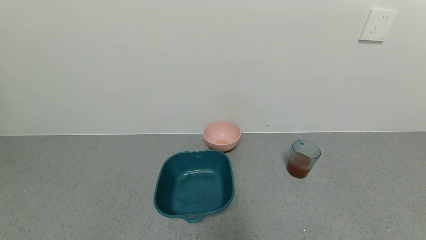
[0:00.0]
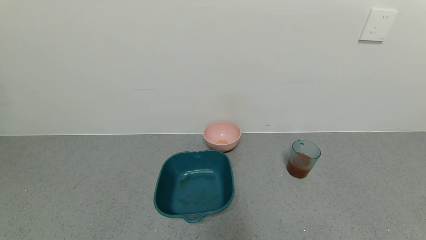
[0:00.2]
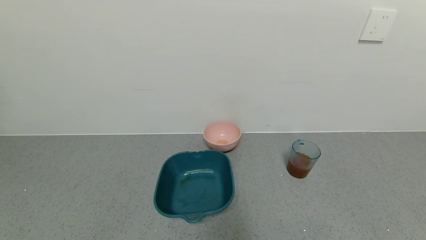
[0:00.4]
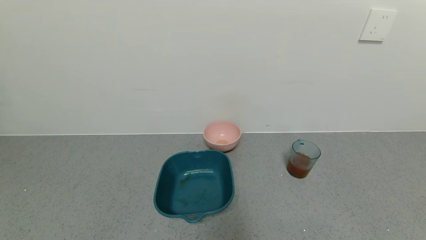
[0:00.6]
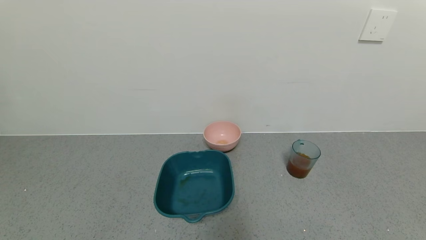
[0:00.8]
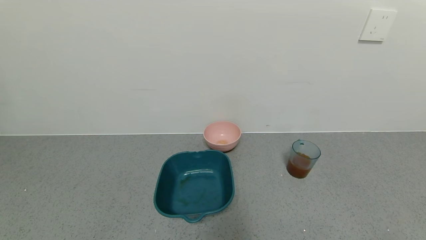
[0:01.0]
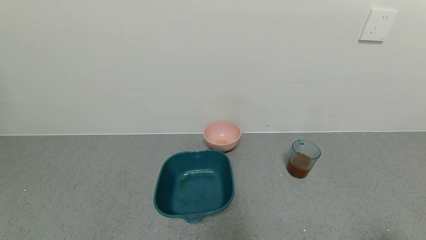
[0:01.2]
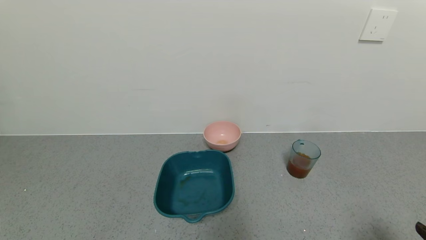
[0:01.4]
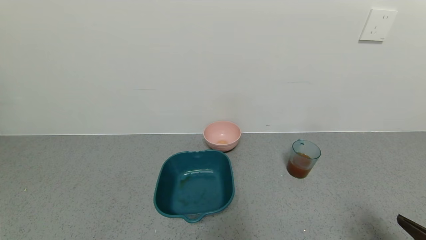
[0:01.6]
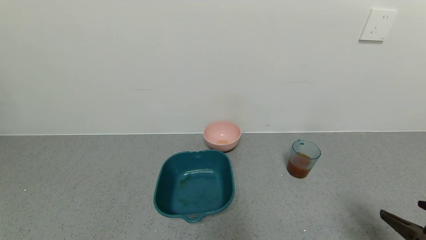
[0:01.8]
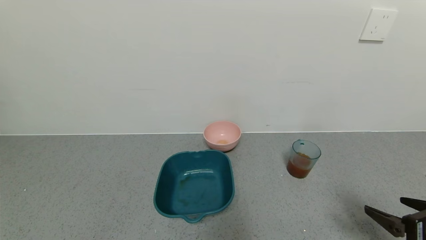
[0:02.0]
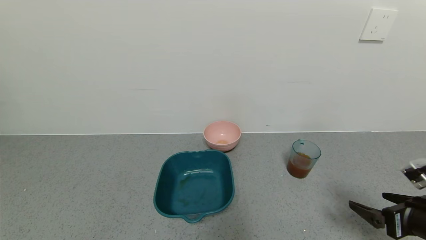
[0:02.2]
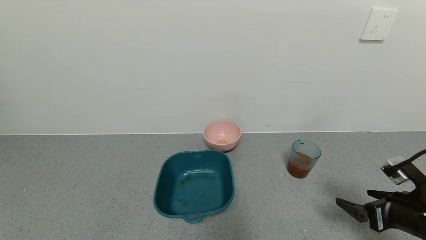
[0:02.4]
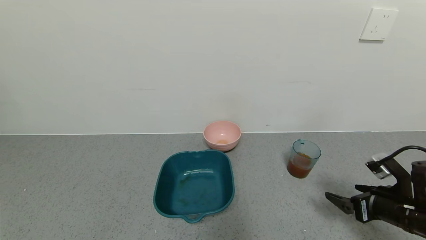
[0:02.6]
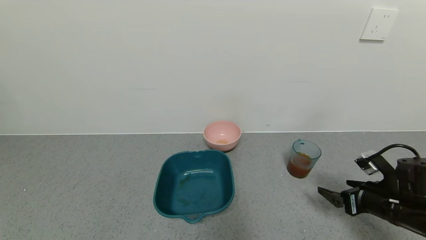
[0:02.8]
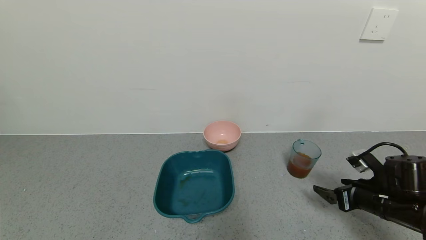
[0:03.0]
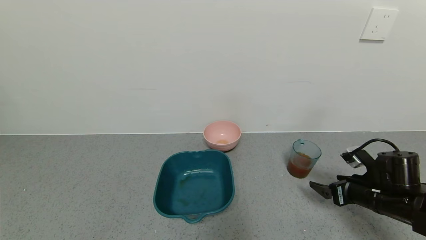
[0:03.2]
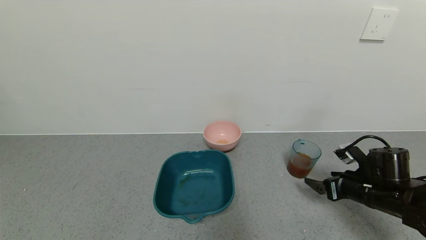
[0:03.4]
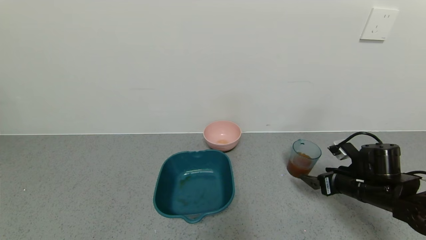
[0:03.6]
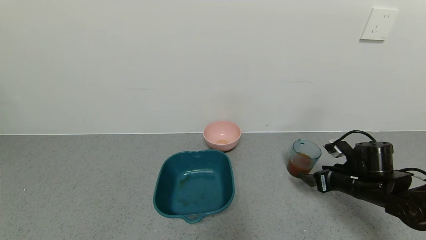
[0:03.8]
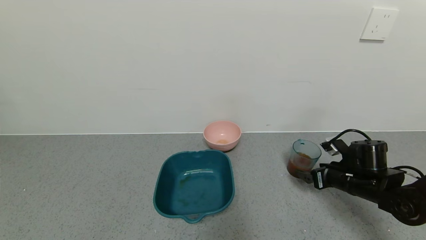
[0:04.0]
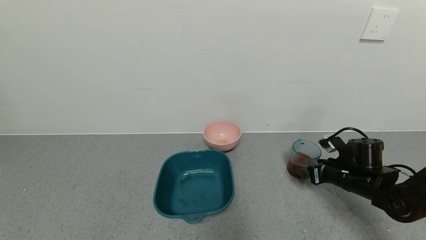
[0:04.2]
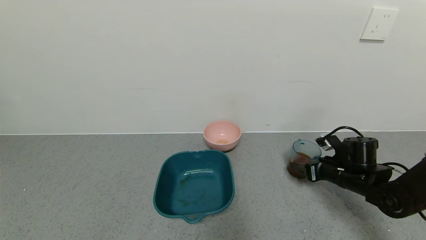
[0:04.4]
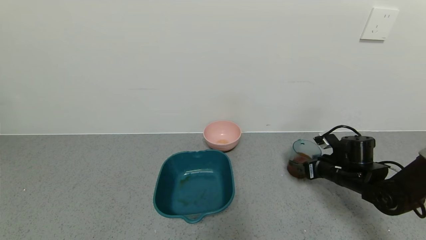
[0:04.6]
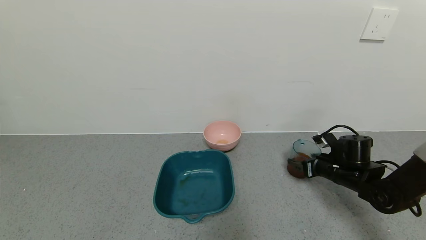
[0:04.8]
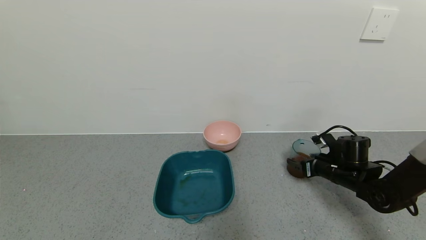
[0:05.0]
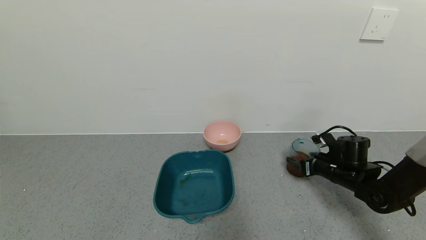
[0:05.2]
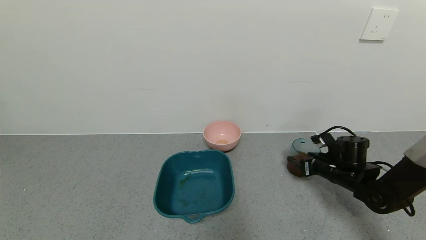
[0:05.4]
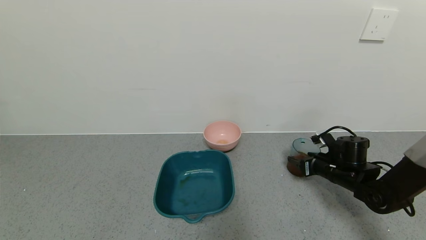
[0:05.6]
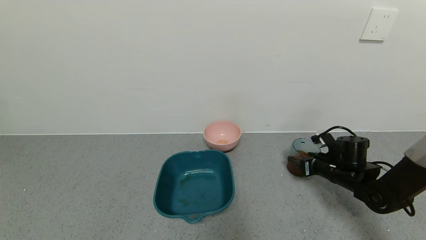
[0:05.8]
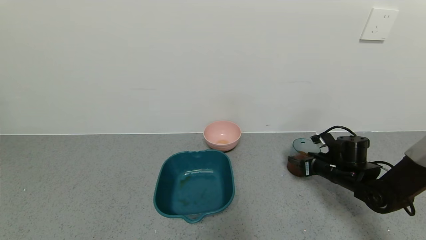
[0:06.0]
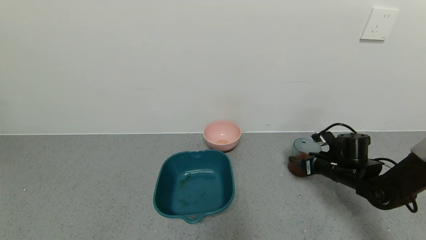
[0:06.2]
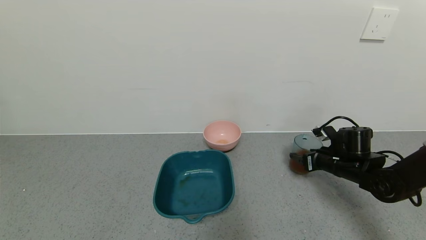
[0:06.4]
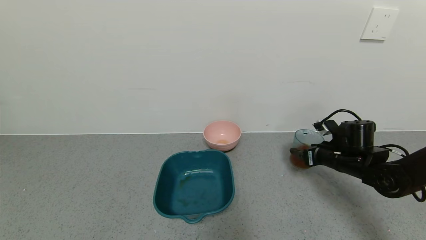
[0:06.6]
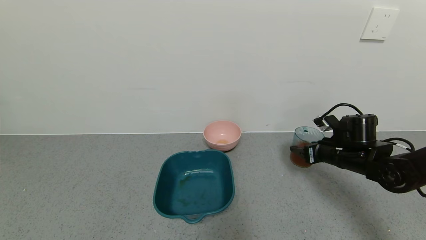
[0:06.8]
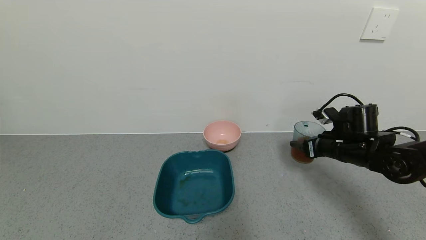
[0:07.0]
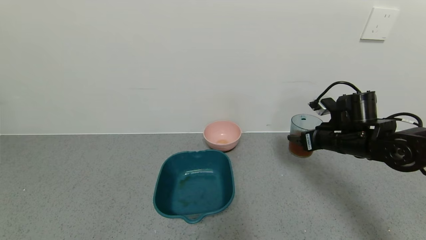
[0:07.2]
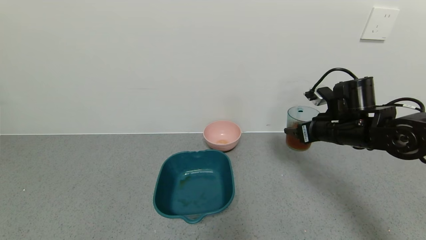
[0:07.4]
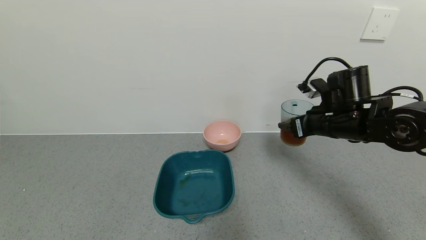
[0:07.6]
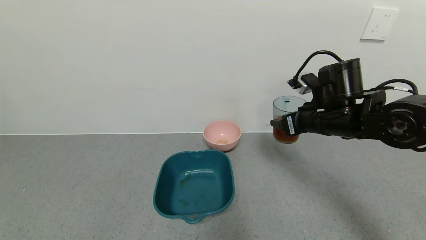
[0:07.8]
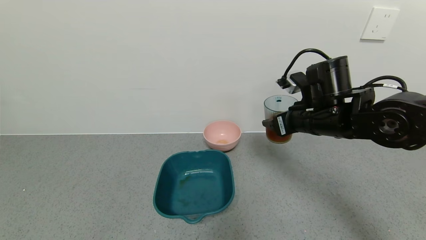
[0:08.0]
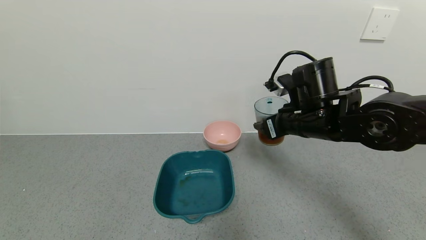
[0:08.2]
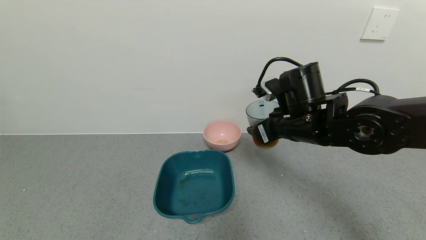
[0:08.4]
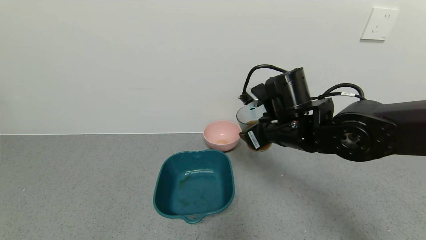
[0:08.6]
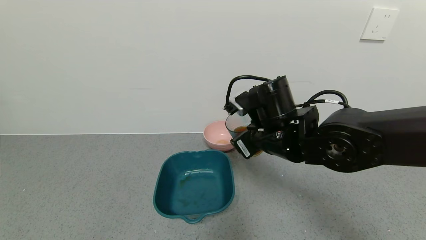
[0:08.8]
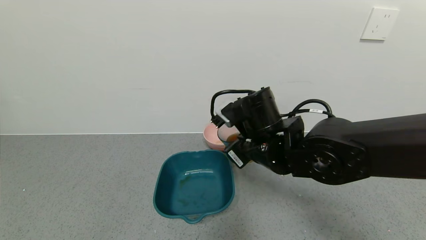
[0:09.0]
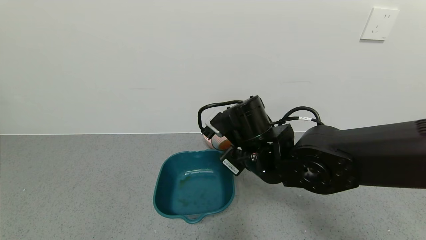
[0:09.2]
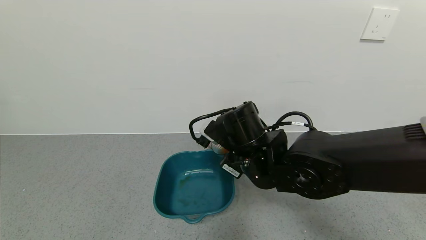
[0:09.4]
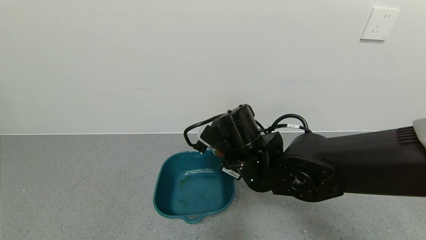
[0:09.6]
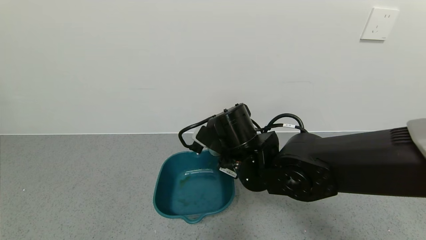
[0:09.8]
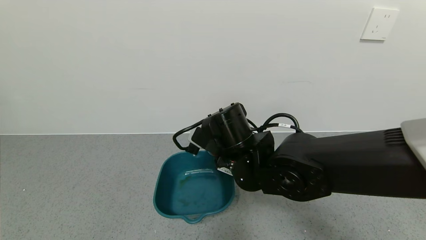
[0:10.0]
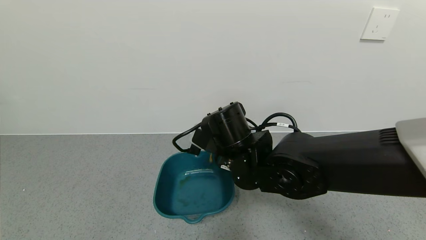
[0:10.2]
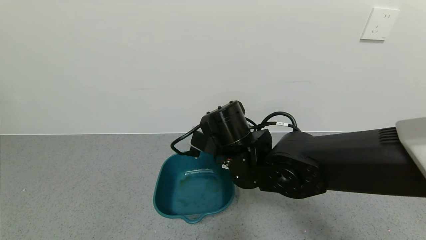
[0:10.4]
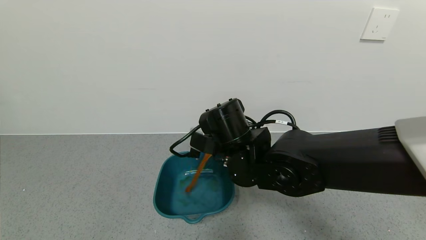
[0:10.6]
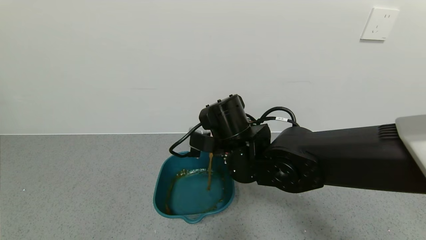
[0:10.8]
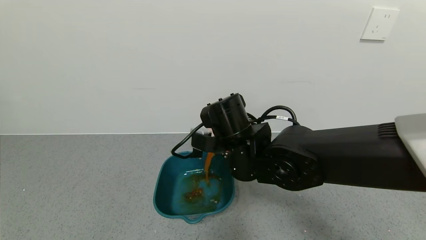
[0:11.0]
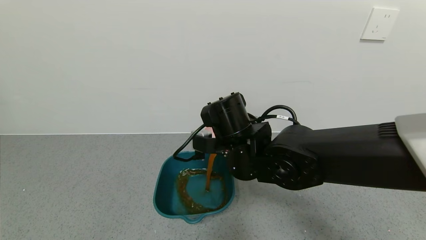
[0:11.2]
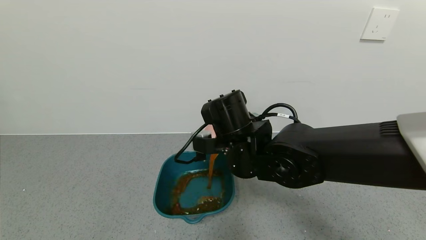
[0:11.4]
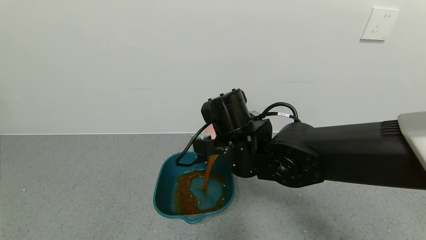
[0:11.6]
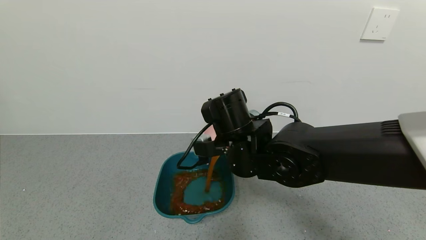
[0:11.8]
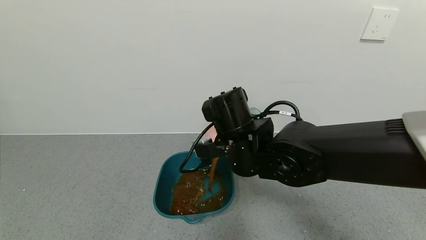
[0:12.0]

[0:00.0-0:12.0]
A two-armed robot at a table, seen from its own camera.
Task of the whole recording: use a gripper to pick up the cup and pour the liquid into a bowl or tray.
Step, 0:00.0 to 0:06.8: Pick up blue cup filled with tea with right gripper.
0:00.0 to 0:01.6: The right gripper goes approximately 15 cm forward and upward.
0:01.6 to 0:03.0: The right gripper moves forward and downward, about 20 cm.
0:03.0 to 0:04.4: The right gripper heads forward, covering approximately 10 cm.
0:04.4 to 0:06.0: The right gripper closes.
0:06.0 to 0:07.6: The right gripper is displaced upward and to the left by roughly 20 cm.
0:07.6 to 0:09.0: The right gripper travels to the left by approximately 15 cm.

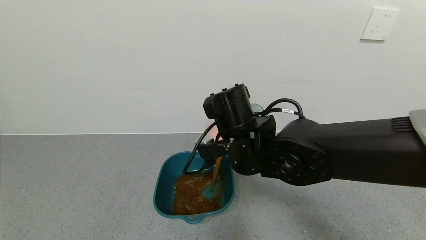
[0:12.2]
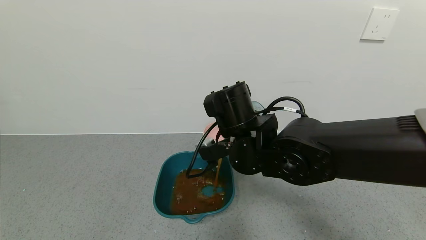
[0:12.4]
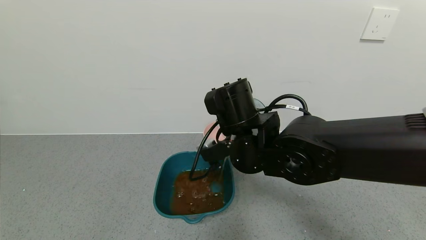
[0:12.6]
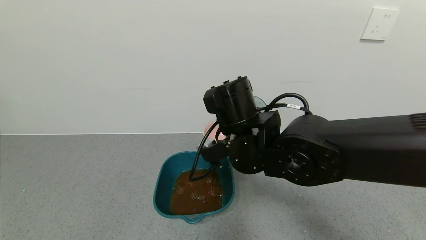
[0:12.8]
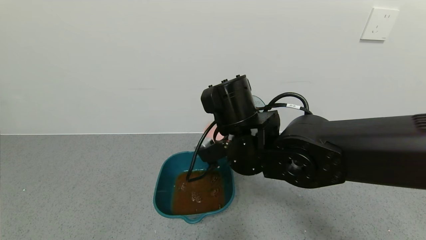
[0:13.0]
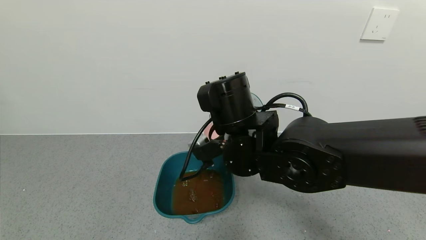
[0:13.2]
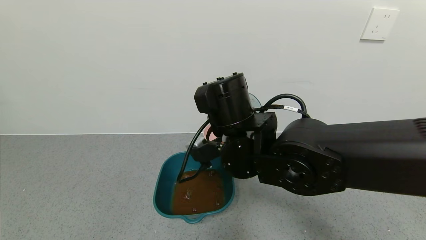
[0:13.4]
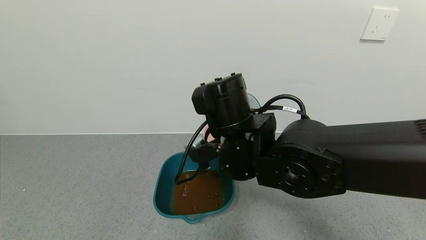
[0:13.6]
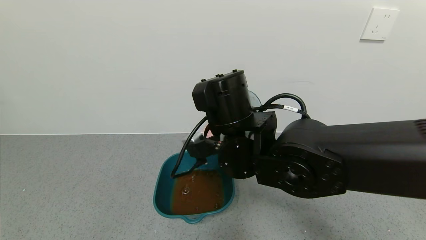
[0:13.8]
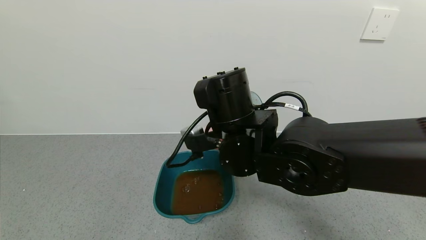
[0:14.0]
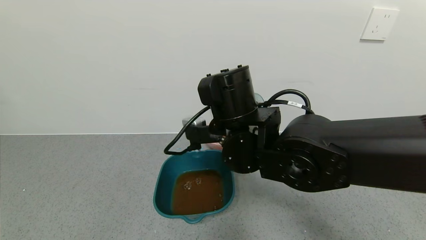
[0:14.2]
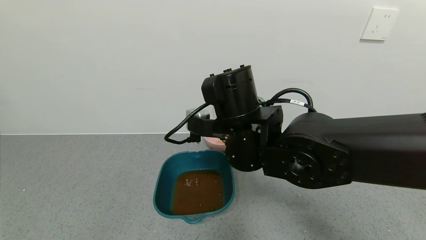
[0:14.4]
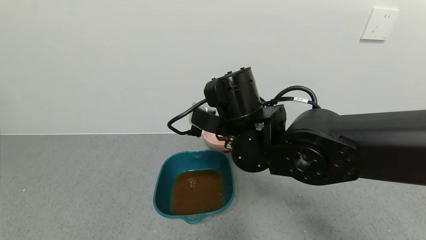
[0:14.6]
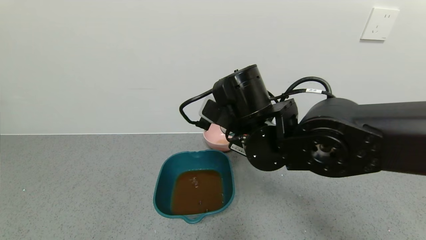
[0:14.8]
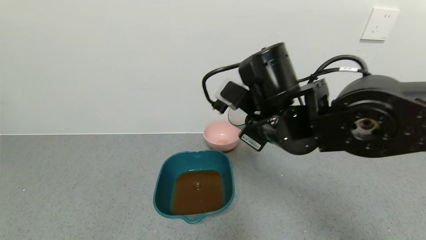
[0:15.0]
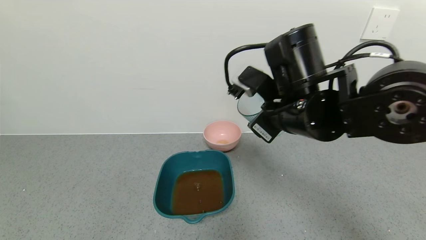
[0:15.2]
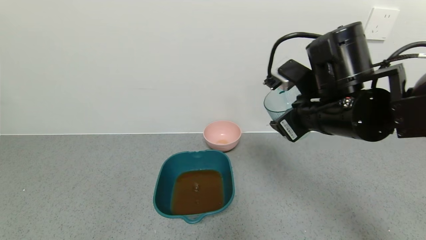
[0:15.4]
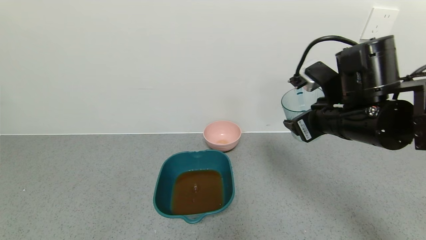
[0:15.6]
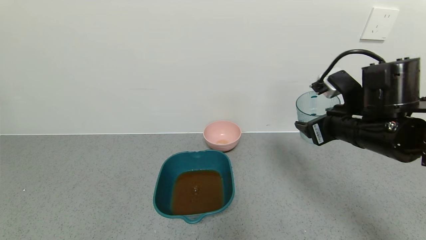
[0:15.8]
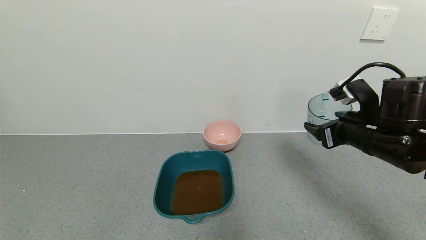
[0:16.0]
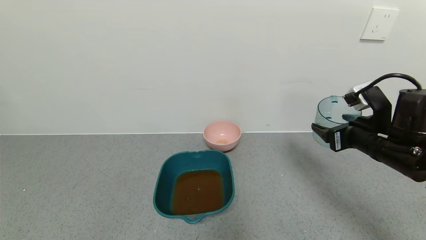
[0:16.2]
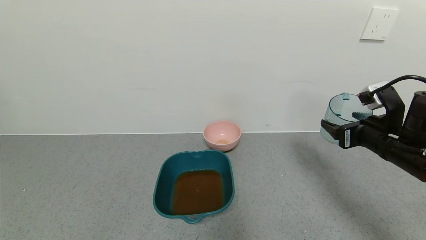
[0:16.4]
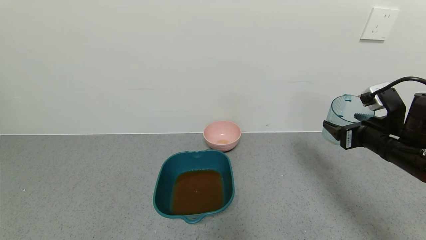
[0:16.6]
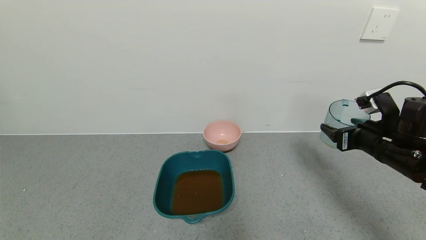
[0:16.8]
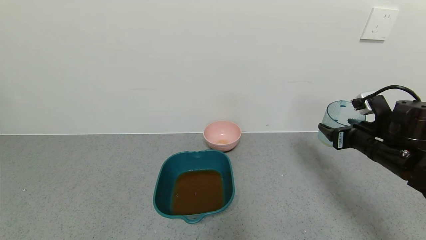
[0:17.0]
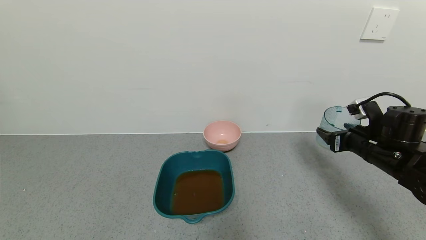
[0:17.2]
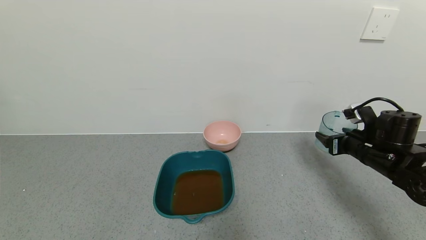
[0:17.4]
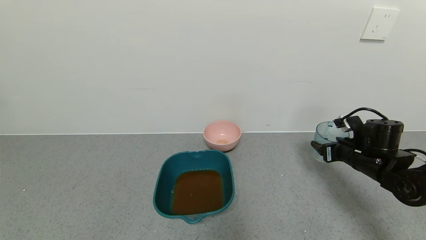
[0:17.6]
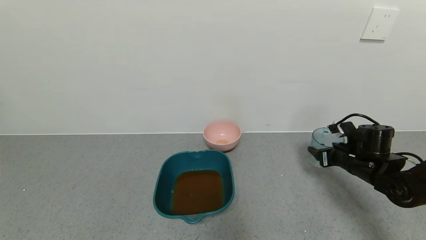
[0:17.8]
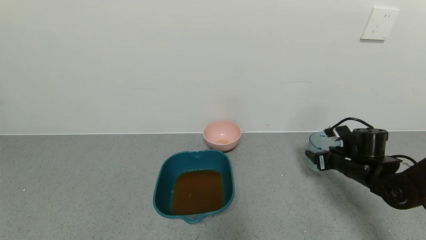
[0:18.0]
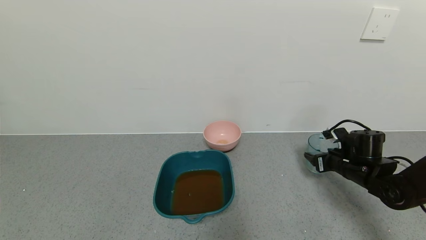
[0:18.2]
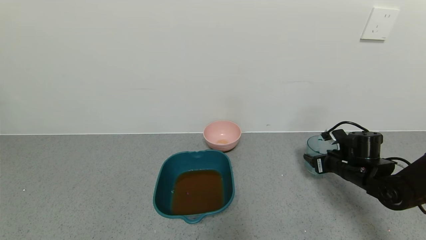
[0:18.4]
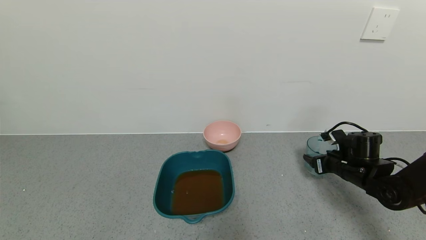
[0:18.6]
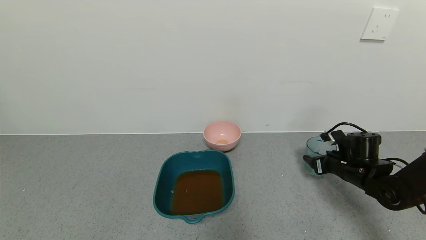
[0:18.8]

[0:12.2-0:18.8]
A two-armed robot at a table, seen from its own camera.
Task of the whole recording: use a gripper to pick up the cup and pour the liquid into a bowl or tray.
Step, 0:12.2 to 0:14.6: Pour the tea into the blue basin with right gripper.
Step, 0:14.8 to 0:18.6: Place blue cup with tea on the table with right gripper.
0:12.2 to 0:13.8: The grippers stay close to where they were, moving slightly.
0:13.8 to 0:15.4: The right gripper travels to the right by roughly 15 cm.
0:15.4 to 0:17.2: The right gripper is displaced to the right and downward by some 20 cm.
0:17.2 to 0:18.8: The right gripper heads downward, covering some 10 cm.
